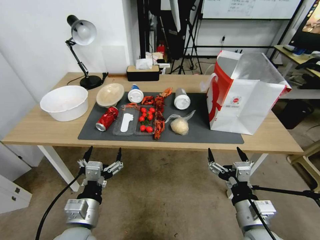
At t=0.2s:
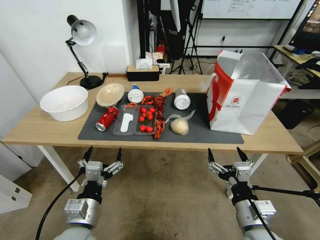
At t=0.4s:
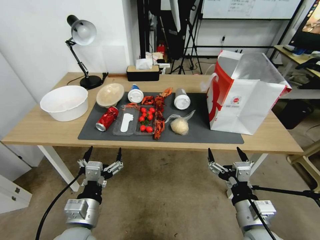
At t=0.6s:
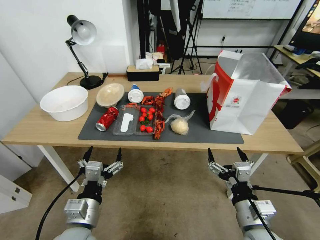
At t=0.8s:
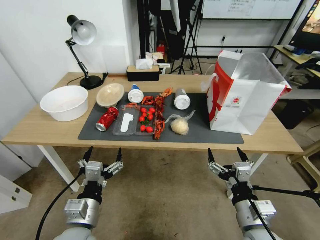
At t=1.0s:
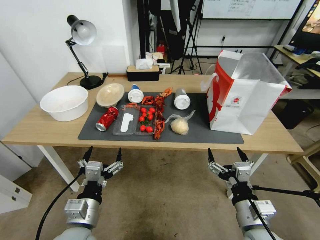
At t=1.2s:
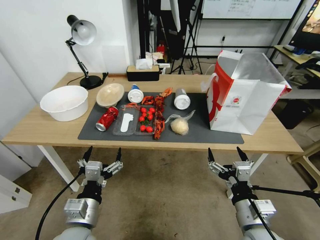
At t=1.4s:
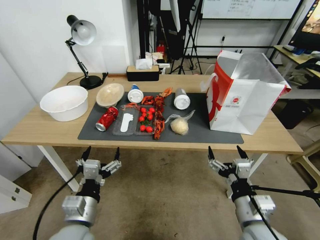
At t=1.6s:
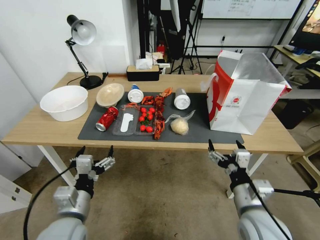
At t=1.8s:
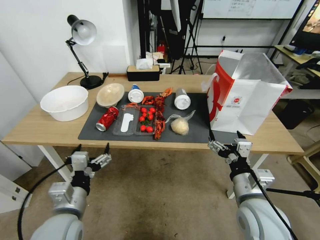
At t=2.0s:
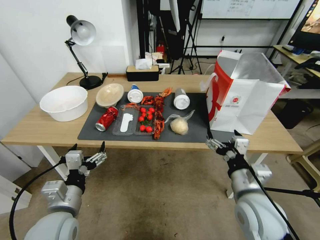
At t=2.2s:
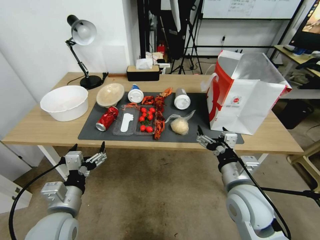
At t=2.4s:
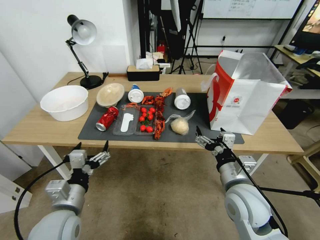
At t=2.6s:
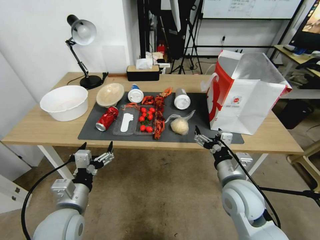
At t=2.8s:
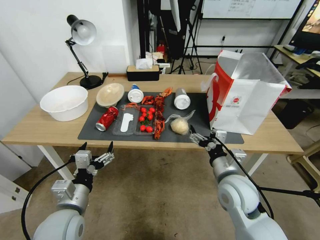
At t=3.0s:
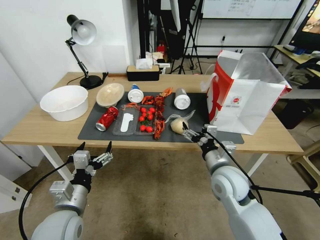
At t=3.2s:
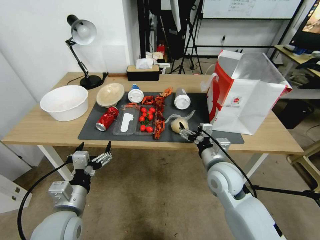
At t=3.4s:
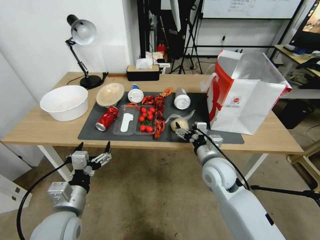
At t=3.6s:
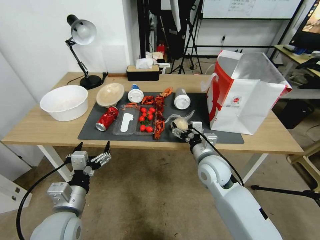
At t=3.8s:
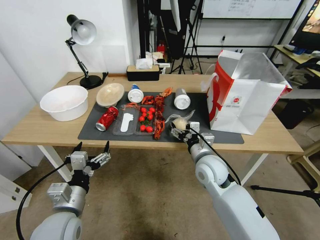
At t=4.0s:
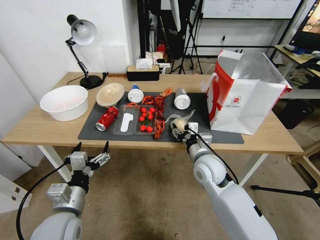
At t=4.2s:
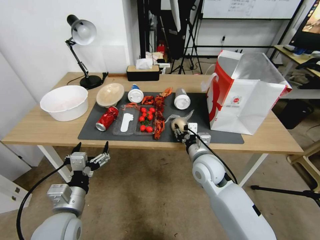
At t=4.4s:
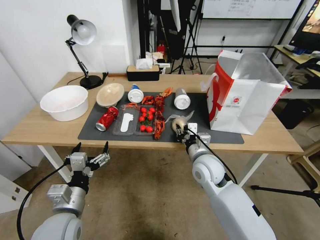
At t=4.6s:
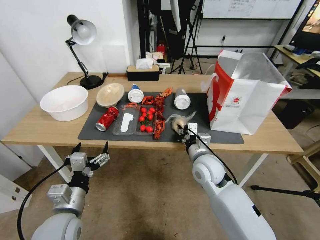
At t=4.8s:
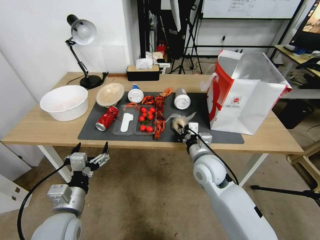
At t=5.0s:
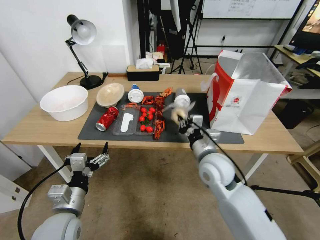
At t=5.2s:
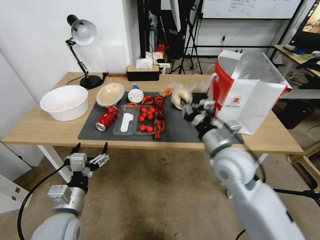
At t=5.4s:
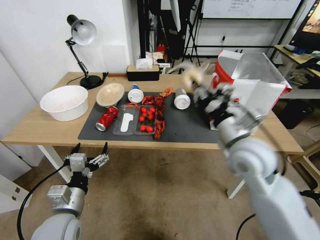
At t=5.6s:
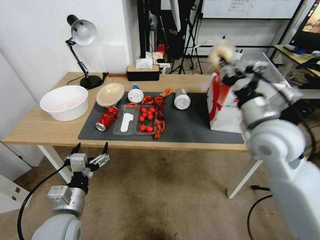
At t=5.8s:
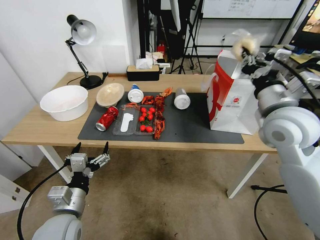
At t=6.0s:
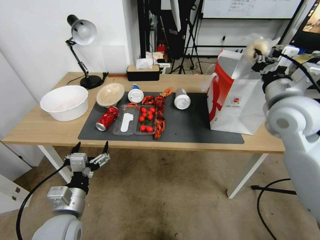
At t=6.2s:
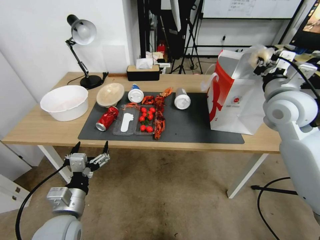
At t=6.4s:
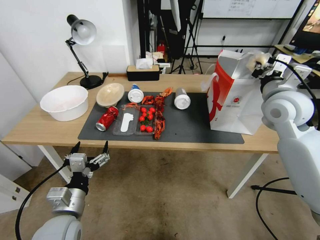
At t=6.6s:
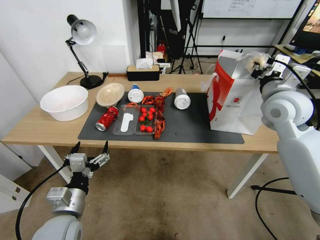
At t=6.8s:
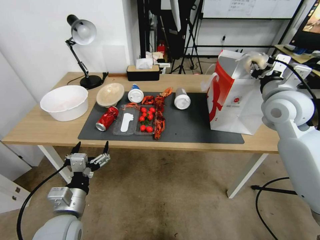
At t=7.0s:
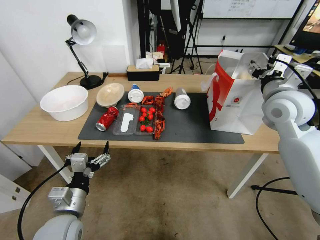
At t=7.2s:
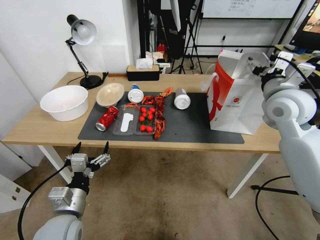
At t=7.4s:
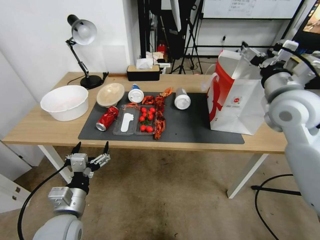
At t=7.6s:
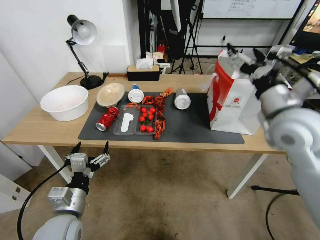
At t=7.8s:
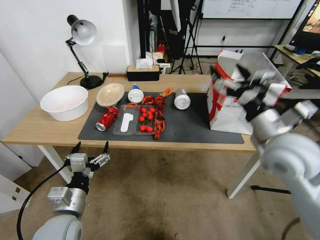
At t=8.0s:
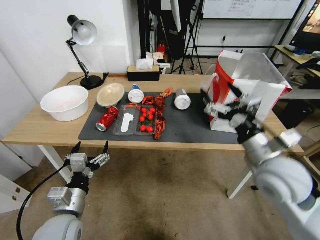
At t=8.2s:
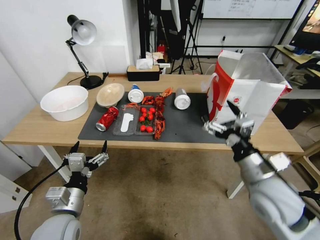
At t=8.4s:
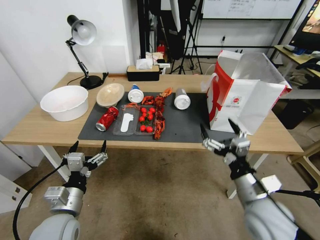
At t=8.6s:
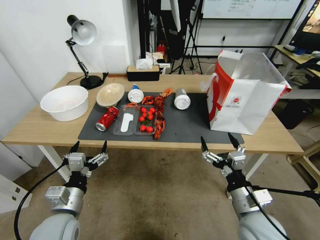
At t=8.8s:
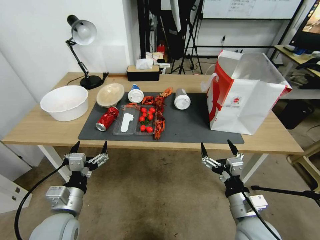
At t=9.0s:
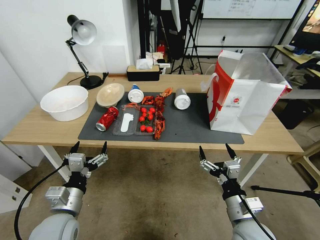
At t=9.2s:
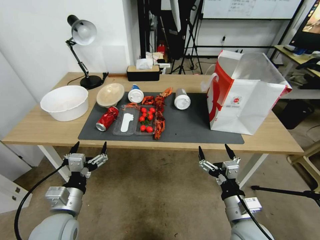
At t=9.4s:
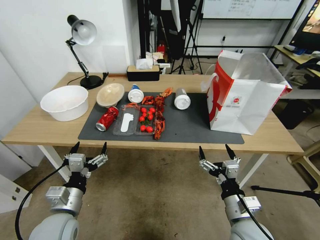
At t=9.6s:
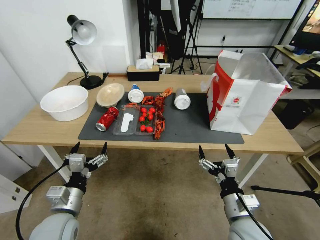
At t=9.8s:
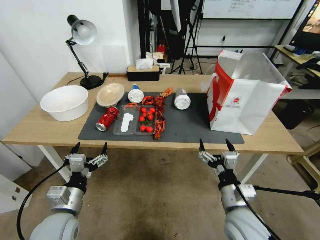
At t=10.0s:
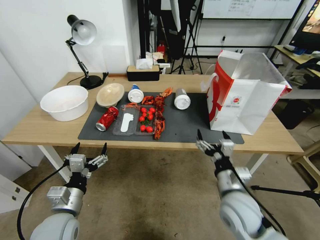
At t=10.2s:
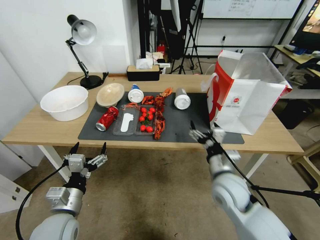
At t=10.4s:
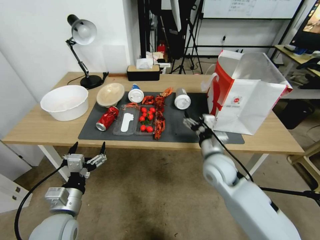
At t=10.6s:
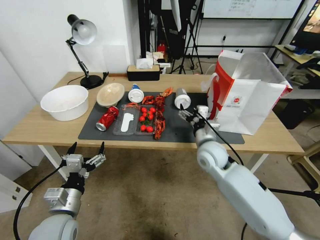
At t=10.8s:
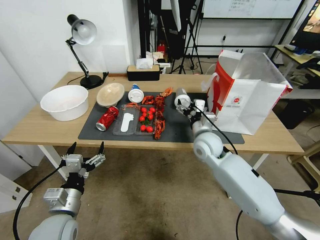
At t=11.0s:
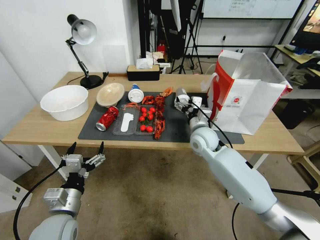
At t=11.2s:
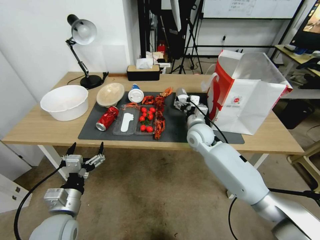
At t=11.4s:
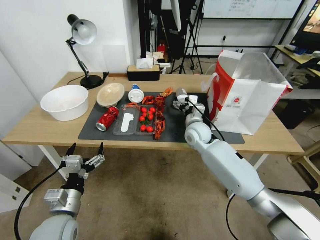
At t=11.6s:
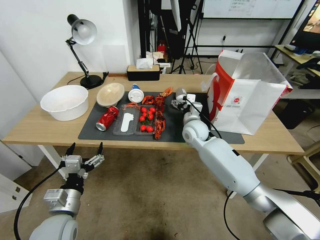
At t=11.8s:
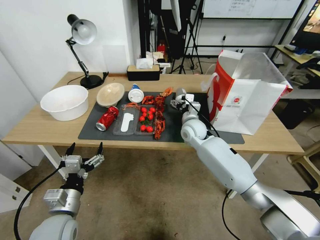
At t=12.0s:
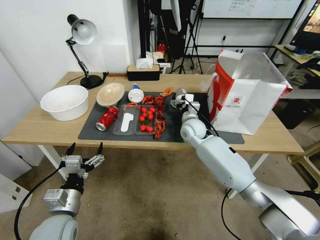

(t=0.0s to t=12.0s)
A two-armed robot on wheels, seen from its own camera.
t=1.6s - t=3.0s: The right gripper is displaced forward by approximately 15 cm.
t=3.0s - t=4.4s: The right gripper moves forward, roughly 5 cm, and closes its fingers.
t=4.4s - t=6.0s: The right gripper goes roughly 25 cm upward and to the right.
t=6.0s - t=7.6s: The right gripper opens up.
t=7.6s - t=9.0s: The right gripper moves downward and backward, about 30 cm.
t=9.0s - t=10.4s: The right gripper heads forward, covering roughly 15 cm.
t=10.4s - t=12.0s: The right gripper travels forward by approximately 20 cm.

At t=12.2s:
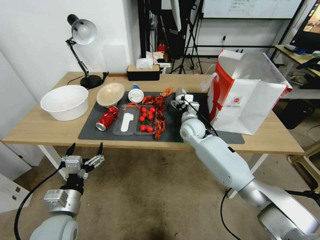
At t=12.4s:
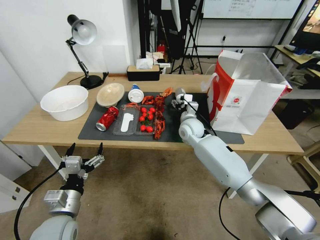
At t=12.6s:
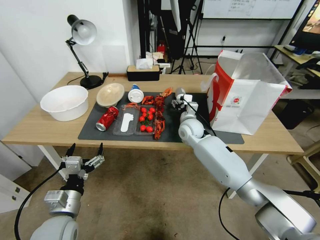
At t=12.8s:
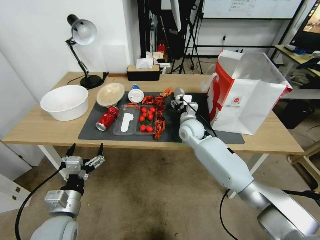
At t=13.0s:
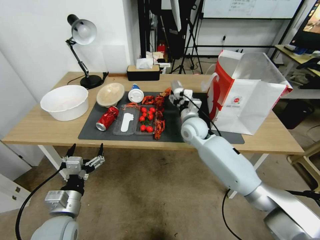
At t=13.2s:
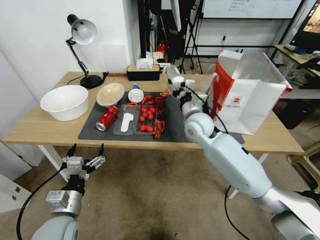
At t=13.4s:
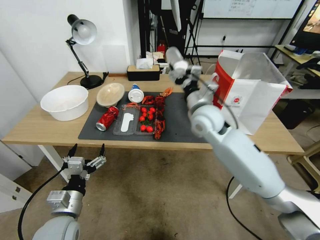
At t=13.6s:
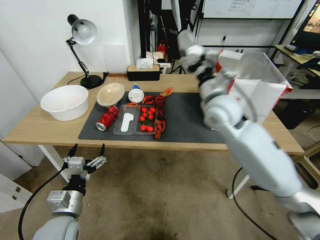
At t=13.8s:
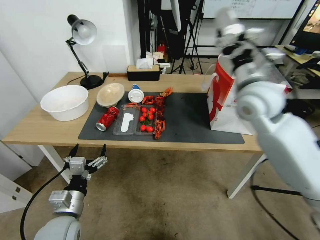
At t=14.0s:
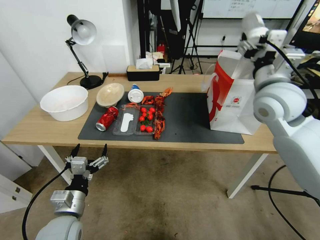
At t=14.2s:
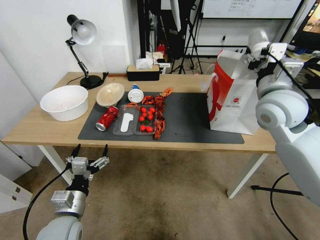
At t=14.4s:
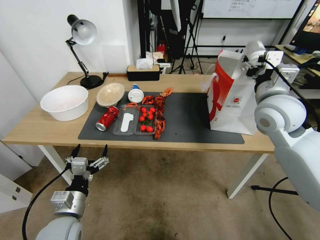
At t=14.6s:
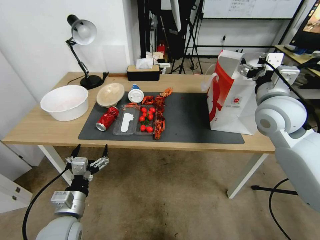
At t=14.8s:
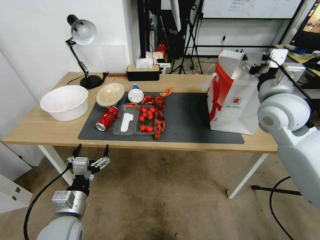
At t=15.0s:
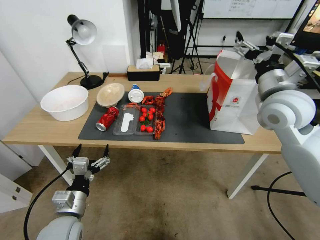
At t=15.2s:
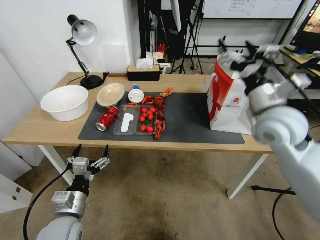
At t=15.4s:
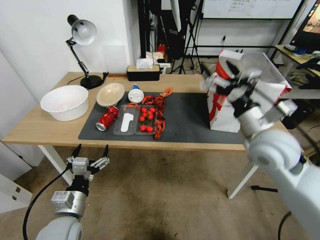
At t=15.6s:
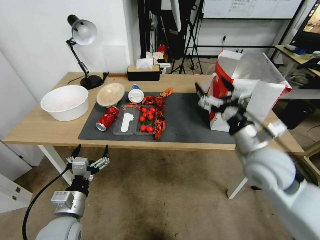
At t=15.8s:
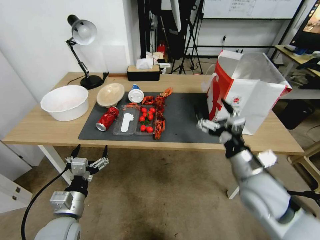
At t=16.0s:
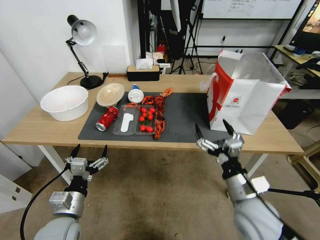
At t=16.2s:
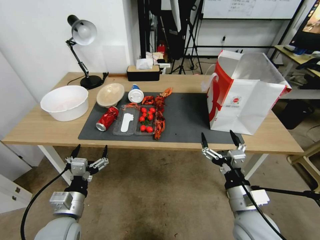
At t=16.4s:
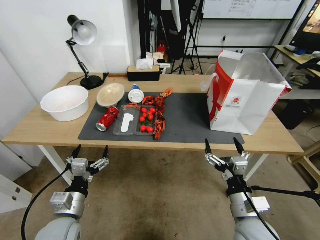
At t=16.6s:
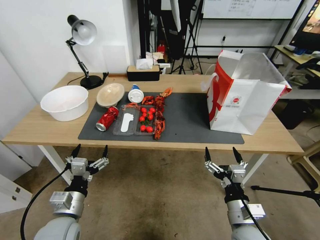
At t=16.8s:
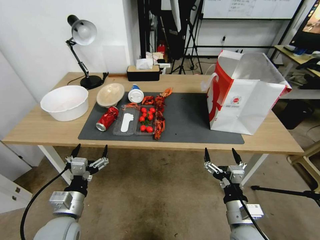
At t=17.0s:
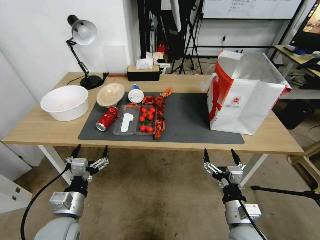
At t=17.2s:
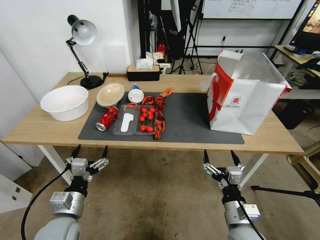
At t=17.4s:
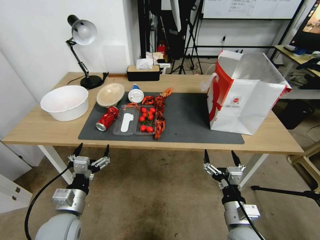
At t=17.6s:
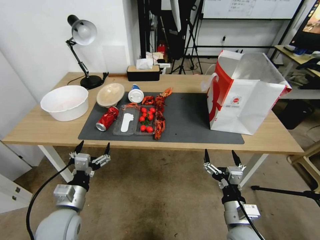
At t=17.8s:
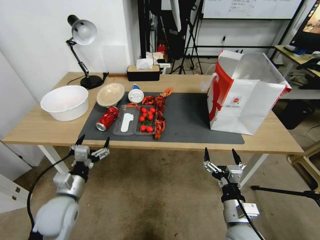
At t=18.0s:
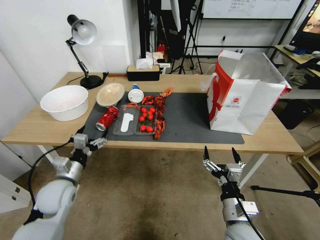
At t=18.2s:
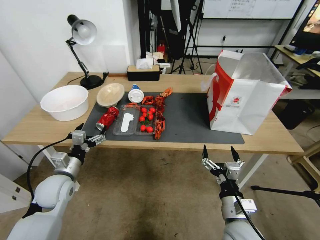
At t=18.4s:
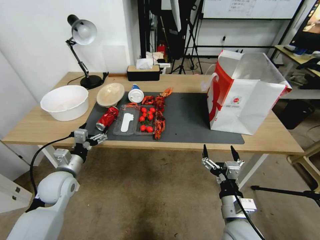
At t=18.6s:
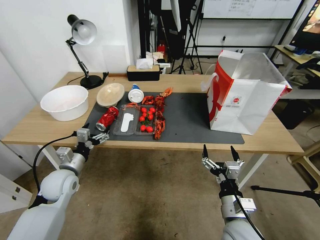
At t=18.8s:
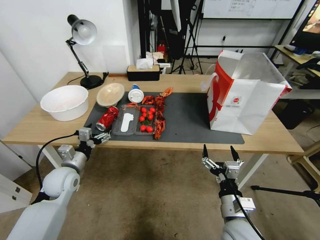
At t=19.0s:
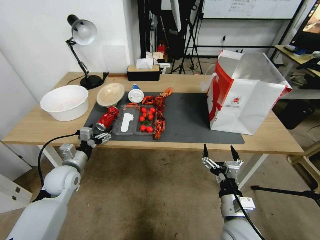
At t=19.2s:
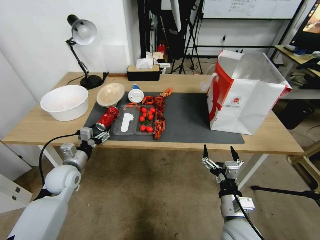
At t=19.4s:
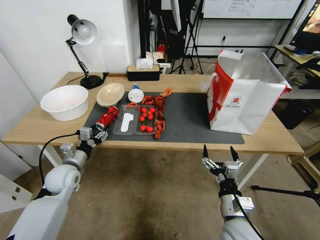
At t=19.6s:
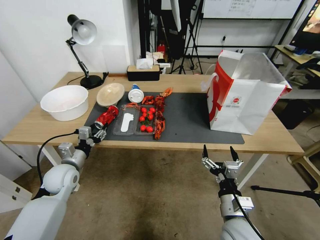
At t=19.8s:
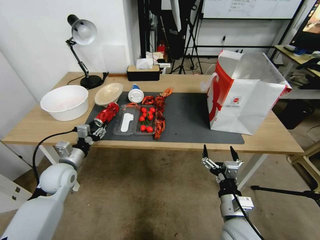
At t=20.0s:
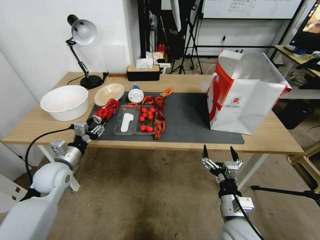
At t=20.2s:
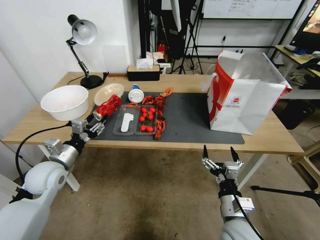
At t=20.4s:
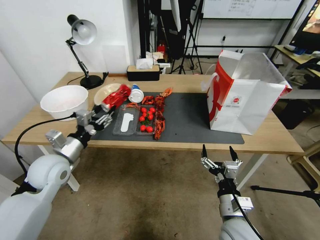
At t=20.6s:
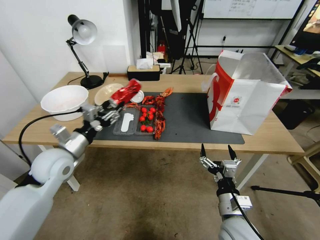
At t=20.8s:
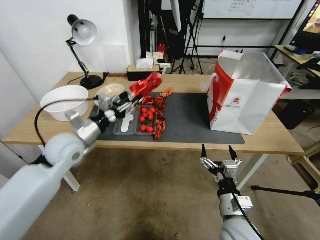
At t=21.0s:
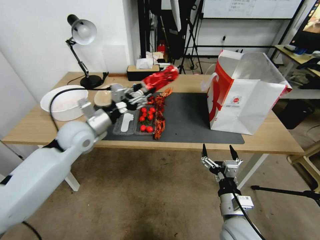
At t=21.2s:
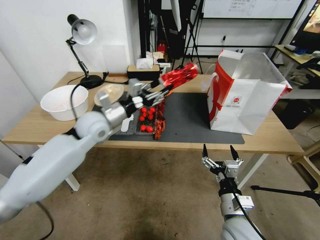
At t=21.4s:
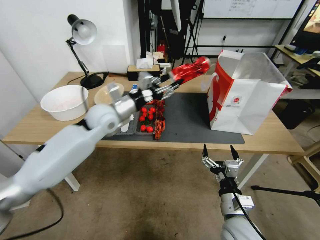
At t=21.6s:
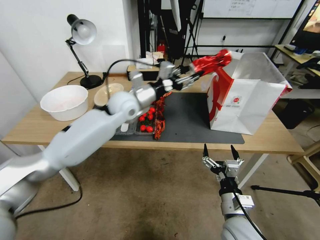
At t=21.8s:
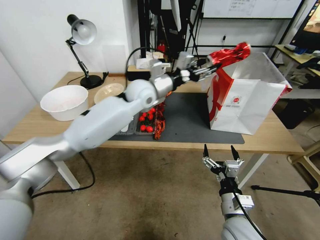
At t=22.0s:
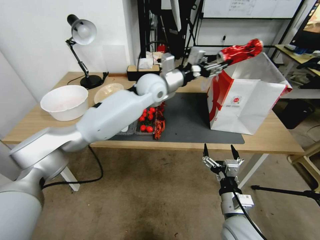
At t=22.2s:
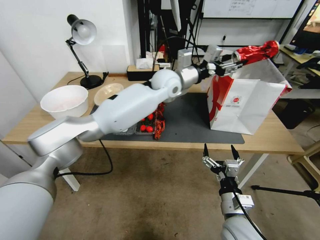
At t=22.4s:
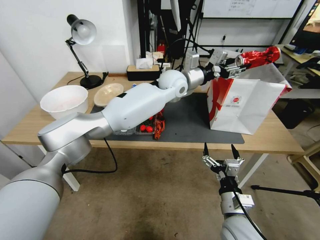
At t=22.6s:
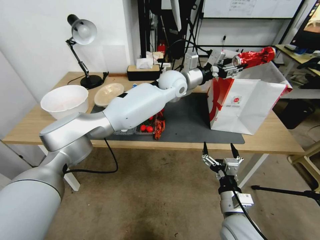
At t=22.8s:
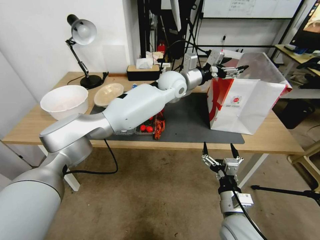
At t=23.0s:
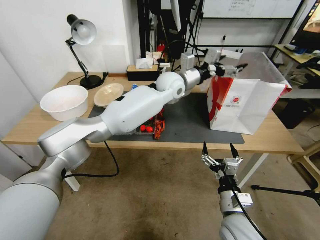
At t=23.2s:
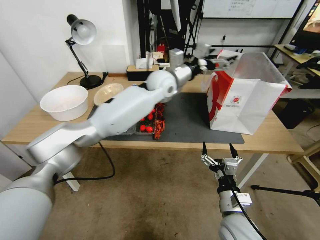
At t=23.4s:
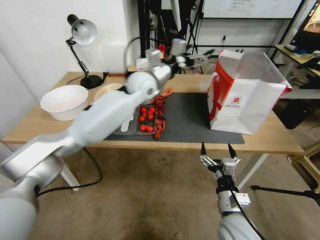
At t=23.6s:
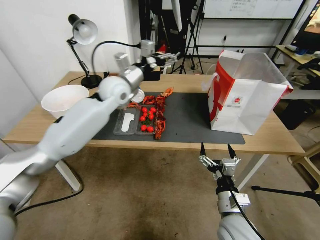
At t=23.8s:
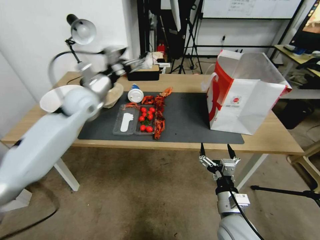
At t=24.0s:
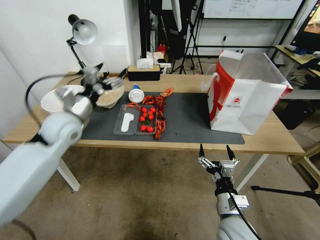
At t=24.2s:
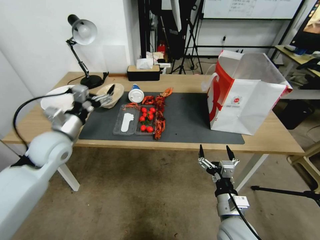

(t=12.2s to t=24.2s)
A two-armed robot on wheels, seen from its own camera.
t=12.2s - t=13.8s: The right gripper travels upward and backward by roughly 25 cm.
t=13.8s - t=15.2s: The right gripper heads to the right and backward, covering about 10 cm.
t=15.2s - t=16.6s: The right gripper heads downward and backward, covering approximately 30 cm.
t=16.6s - t=18.2s: The left gripper heads forward and to the left, covering about 15 cm.
t=18.2s - t=19.8s: The left gripper closes up.
t=19.8s - t=21.2s: The left gripper is displaced upward and to the right by roughly 15 cm.
t=21.2s - t=22.6s: The left gripper moves to the right and forward, some 35 cm.
t=22.6s - t=24.2s: The left gripper heads to the left and backward, covering some 35 cm, and opens up.
